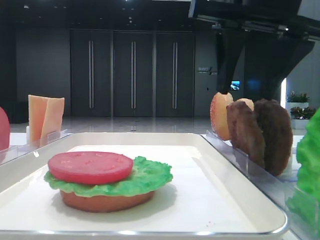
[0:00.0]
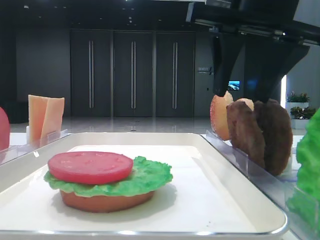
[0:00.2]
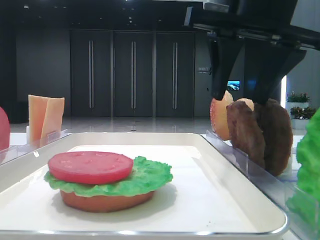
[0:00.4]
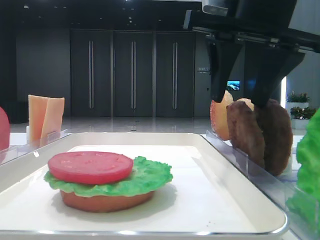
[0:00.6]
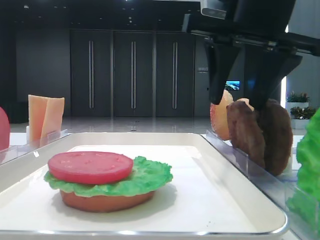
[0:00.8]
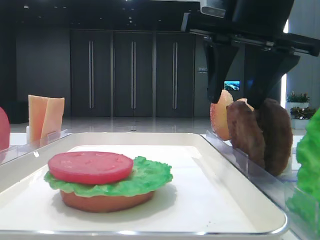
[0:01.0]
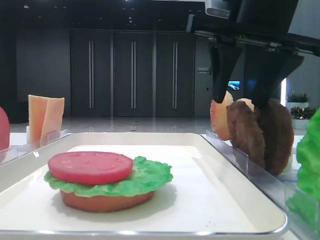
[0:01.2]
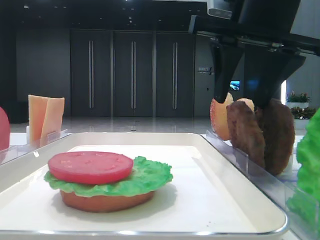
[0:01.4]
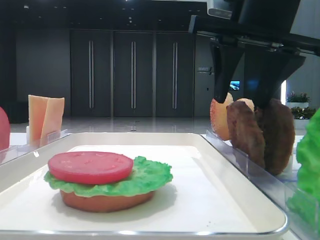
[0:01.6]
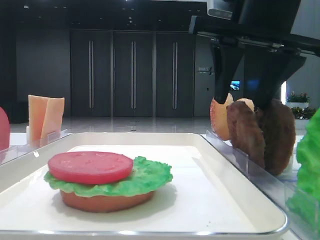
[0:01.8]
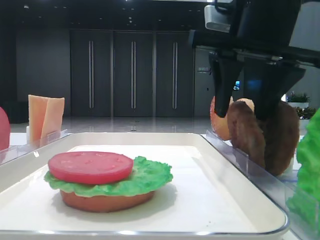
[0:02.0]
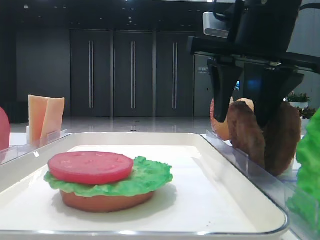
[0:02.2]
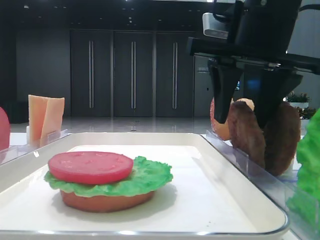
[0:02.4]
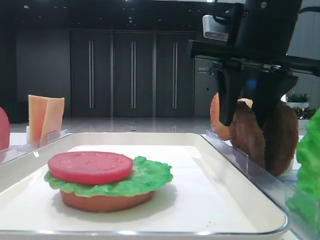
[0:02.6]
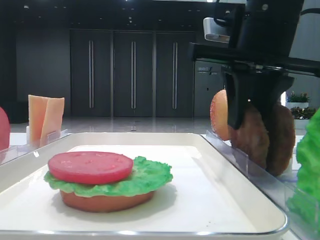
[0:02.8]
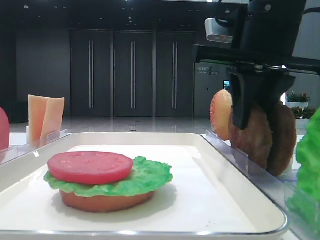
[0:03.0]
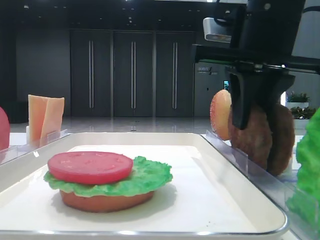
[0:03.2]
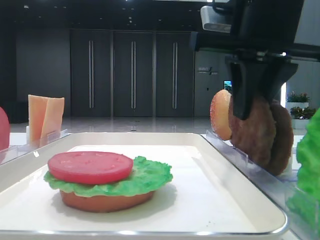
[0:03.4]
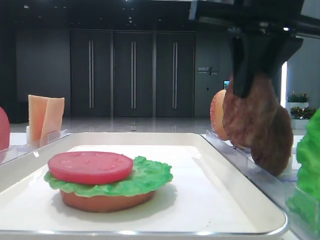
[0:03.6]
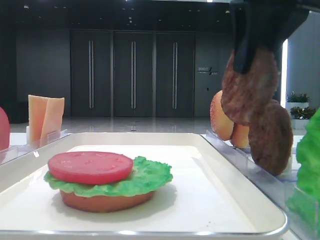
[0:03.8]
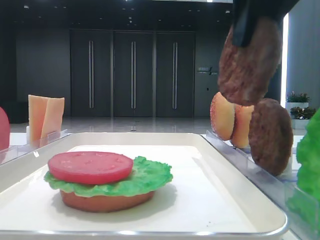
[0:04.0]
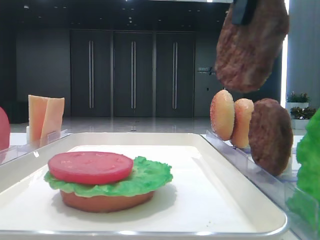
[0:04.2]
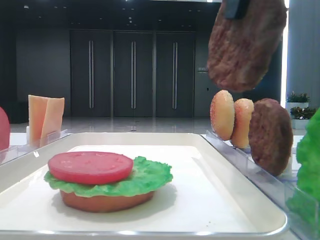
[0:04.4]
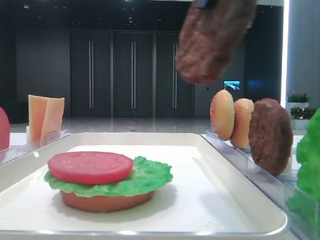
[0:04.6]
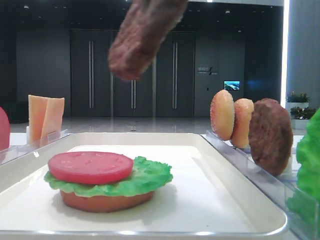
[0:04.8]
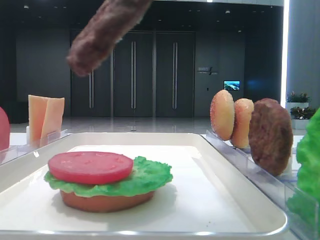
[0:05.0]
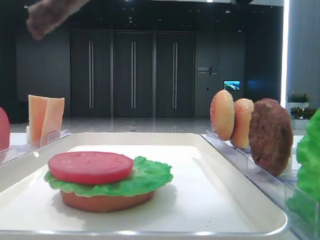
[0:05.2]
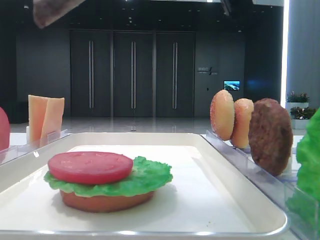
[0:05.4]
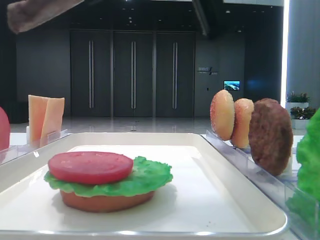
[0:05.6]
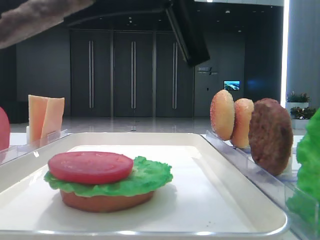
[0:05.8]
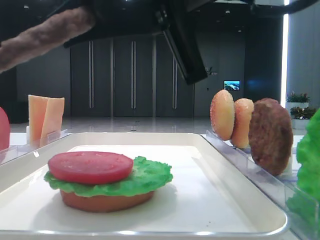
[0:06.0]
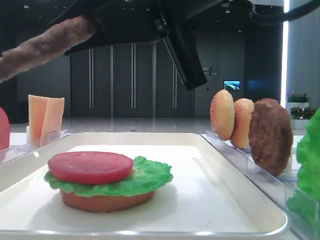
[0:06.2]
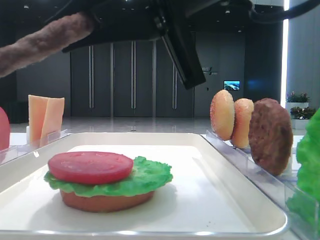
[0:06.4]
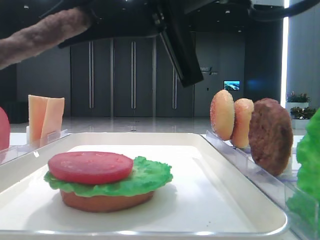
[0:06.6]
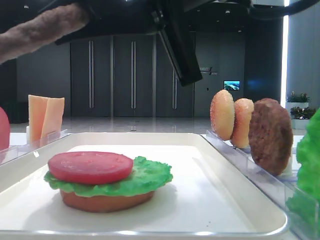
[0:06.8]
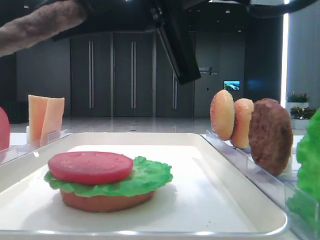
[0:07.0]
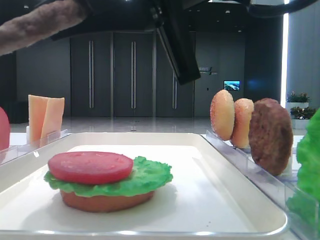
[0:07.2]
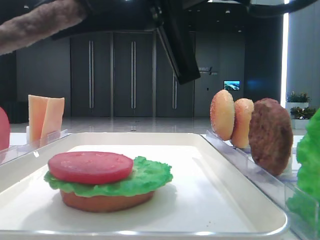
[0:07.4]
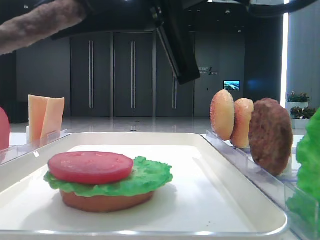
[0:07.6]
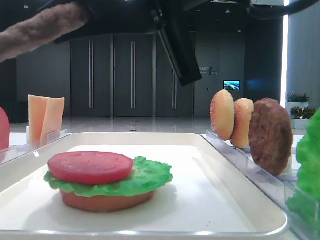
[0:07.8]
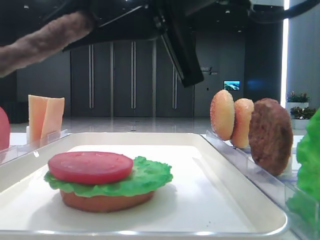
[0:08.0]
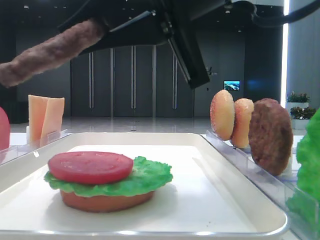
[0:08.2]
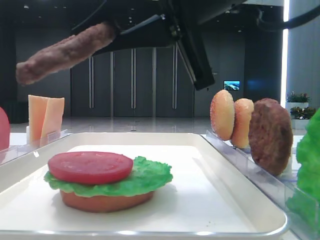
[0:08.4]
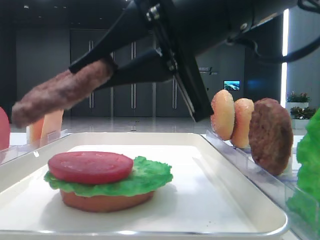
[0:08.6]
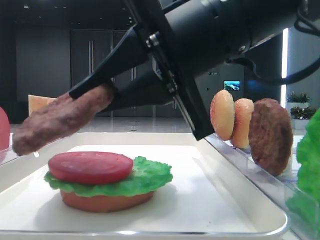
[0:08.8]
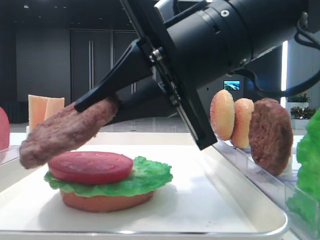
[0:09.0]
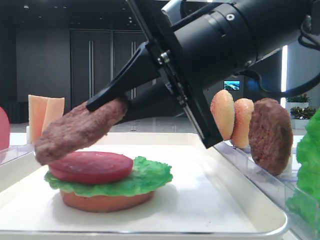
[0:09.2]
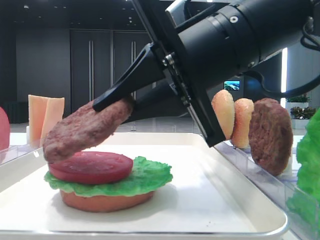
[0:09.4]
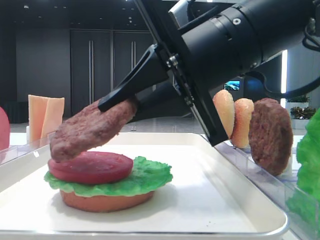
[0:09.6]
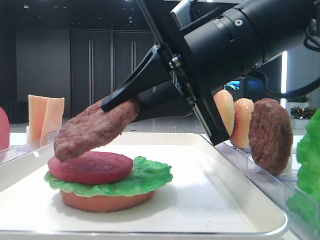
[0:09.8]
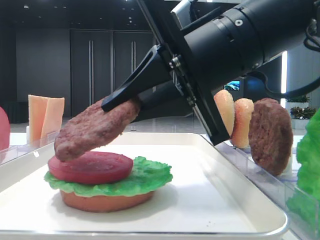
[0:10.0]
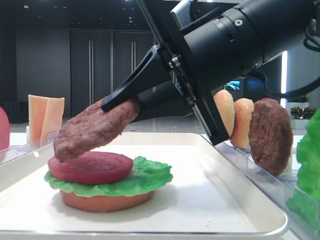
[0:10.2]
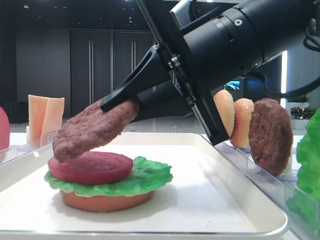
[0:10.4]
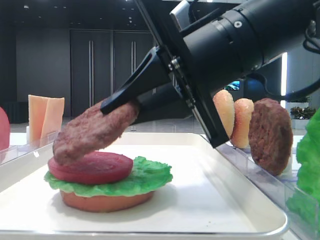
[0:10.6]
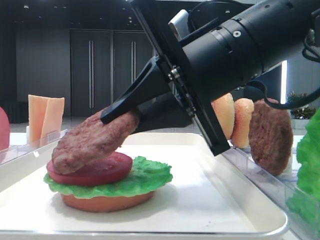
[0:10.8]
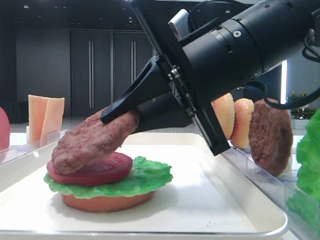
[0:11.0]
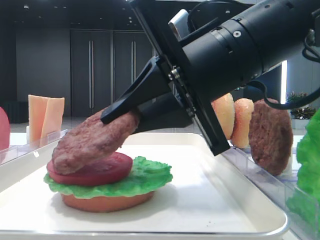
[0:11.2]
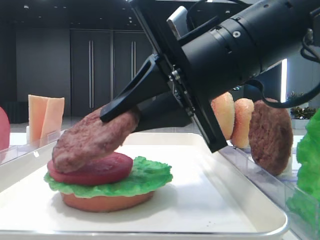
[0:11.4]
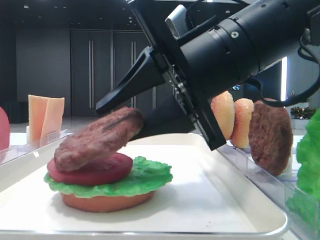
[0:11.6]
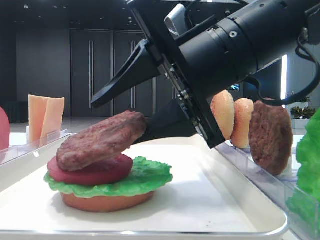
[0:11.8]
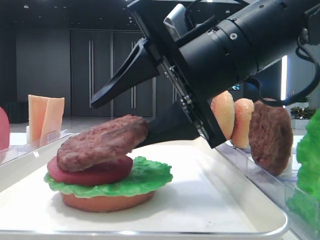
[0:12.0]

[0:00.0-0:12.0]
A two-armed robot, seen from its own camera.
Step, 0:00.0 to 0:03.0: Grab the patty with the right hand.
0:00.0 to 0:01.6: There are only small adjustments of the grippers.
0:01.6 to 0:03.0: The right gripper closes its fingers.
0:03.0 to 0:04.4: The right gripper shifts approximately 15 cm backward and upward.
0:04.4 to 0:06.0: The right gripper moves downward, some 10 cm.
0:06.0 to 0:07.6: The two grippers keep their place.
0:07.6 to 0:09.0: The right gripper is displaced downward by some 5 cm.
0:10.4 to 0:12.0: The right gripper opens.

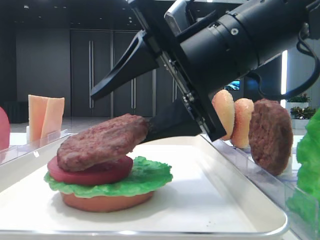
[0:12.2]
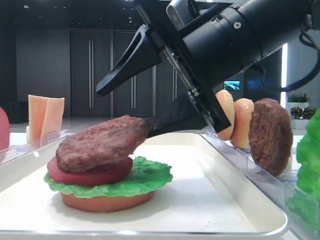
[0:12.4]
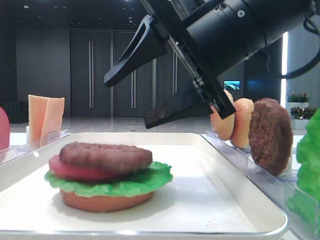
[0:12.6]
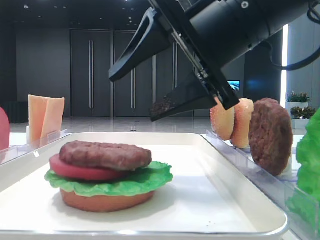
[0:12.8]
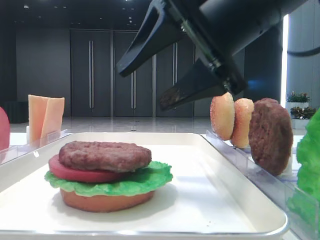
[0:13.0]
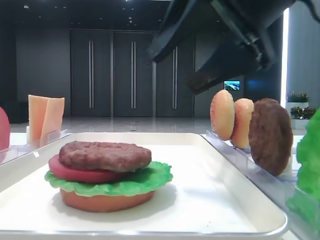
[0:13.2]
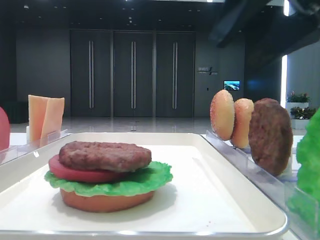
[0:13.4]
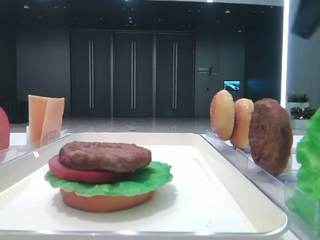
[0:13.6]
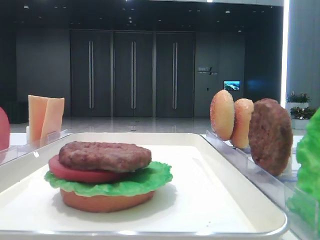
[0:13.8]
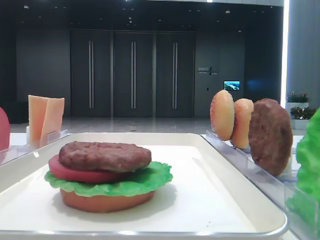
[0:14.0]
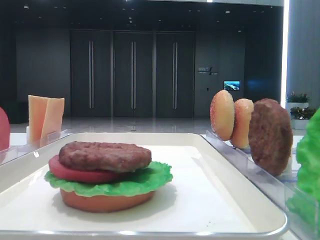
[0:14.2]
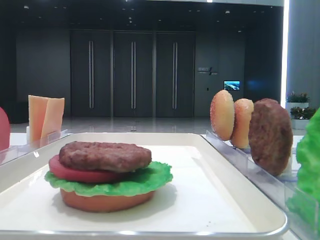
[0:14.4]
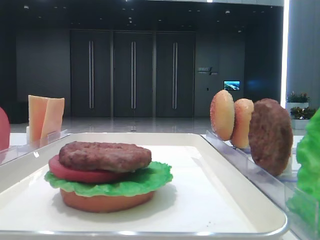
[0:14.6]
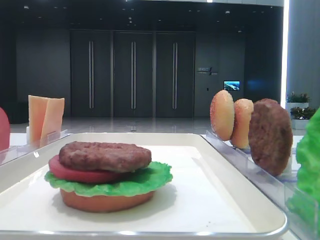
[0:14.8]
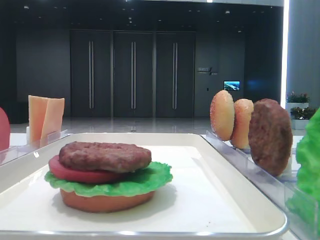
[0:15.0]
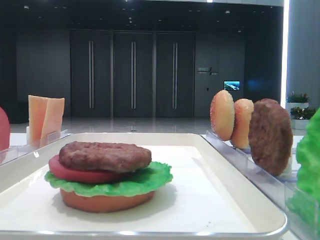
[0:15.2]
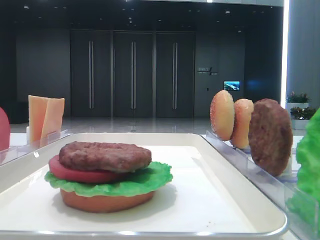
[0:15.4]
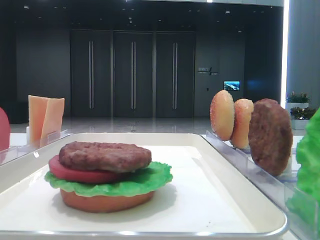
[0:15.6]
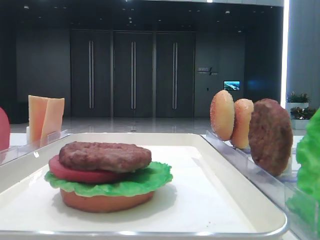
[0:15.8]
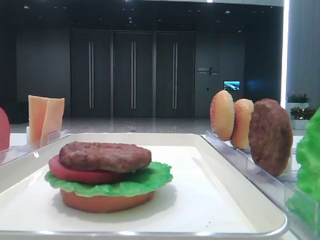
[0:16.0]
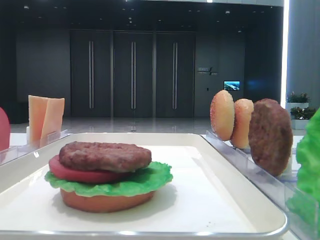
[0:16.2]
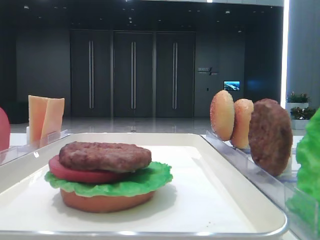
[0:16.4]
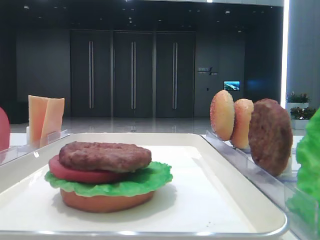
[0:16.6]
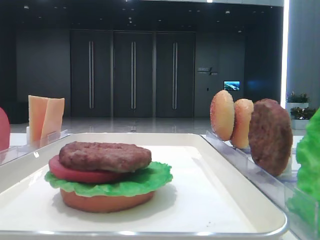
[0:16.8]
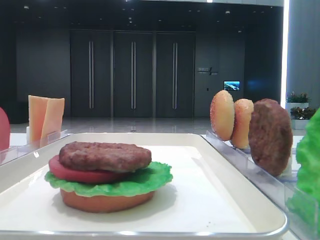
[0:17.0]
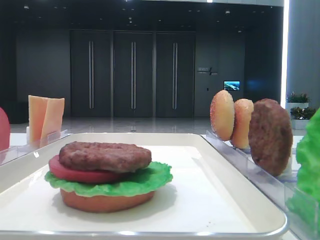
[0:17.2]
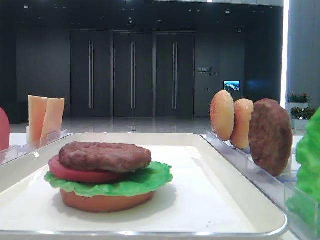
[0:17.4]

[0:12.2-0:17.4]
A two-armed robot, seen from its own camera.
0:12.2 to 0:14.0: The right gripper moves to the right, upward and backward, some 30 cm.

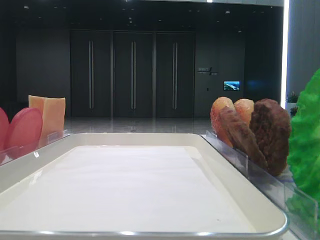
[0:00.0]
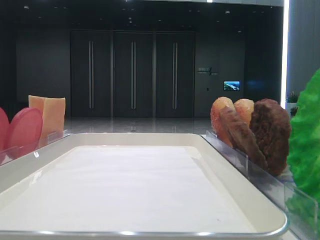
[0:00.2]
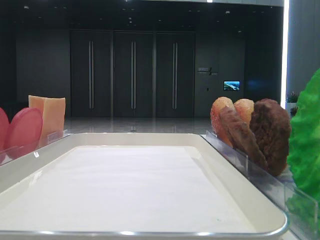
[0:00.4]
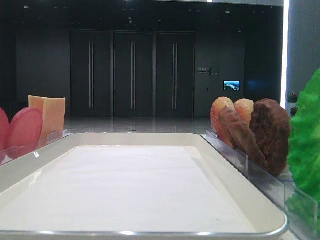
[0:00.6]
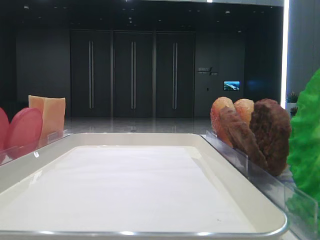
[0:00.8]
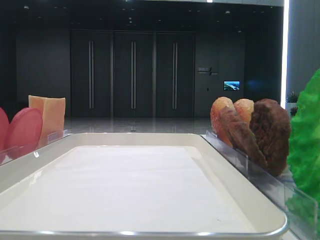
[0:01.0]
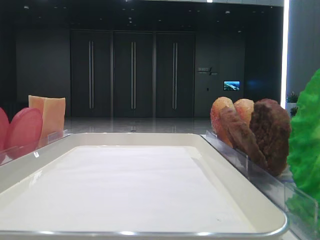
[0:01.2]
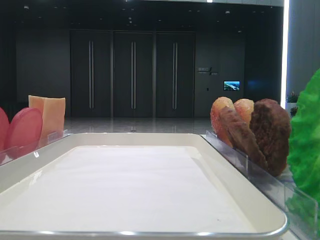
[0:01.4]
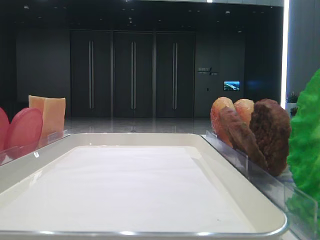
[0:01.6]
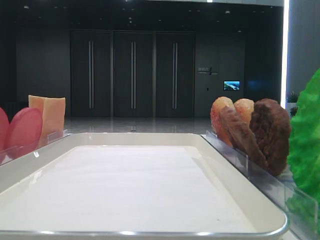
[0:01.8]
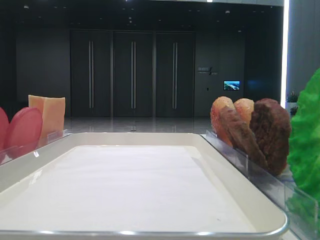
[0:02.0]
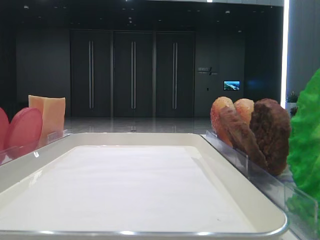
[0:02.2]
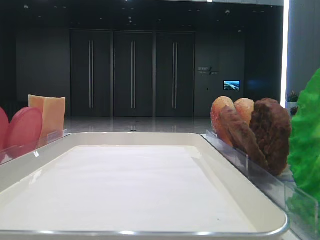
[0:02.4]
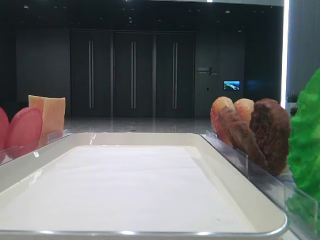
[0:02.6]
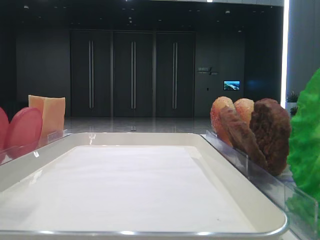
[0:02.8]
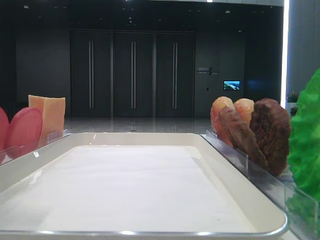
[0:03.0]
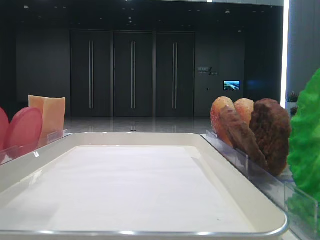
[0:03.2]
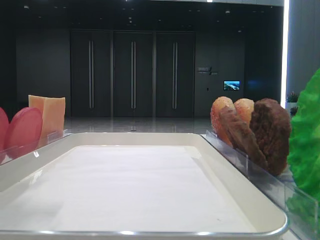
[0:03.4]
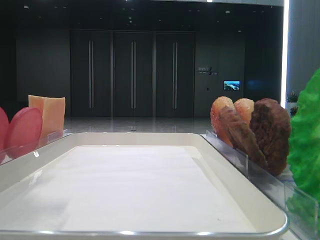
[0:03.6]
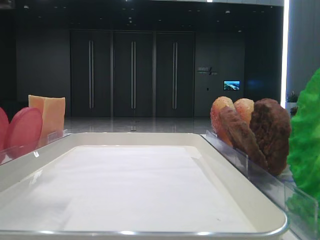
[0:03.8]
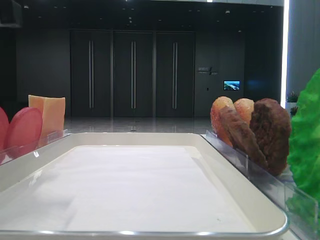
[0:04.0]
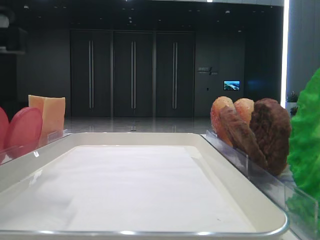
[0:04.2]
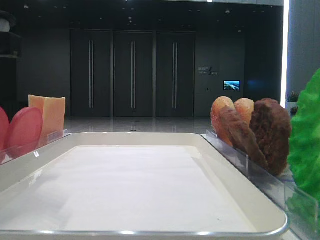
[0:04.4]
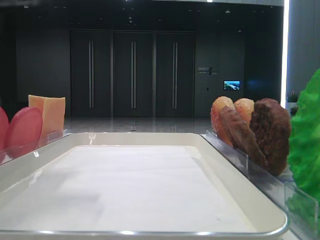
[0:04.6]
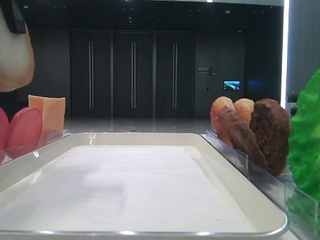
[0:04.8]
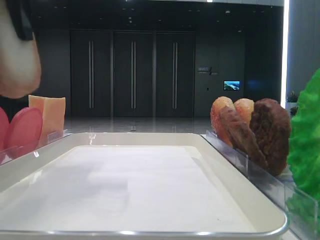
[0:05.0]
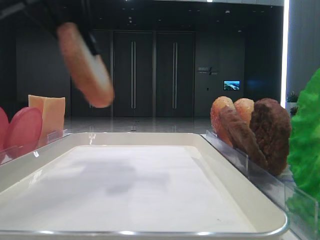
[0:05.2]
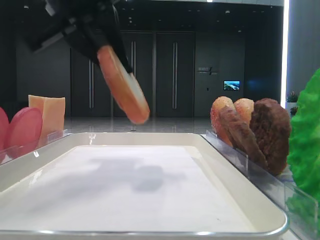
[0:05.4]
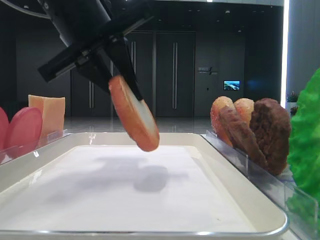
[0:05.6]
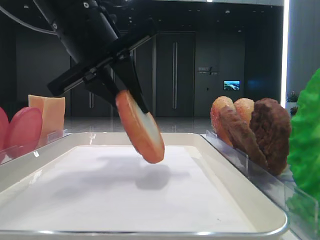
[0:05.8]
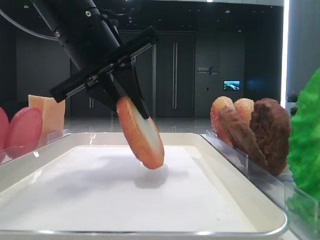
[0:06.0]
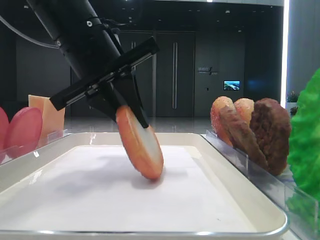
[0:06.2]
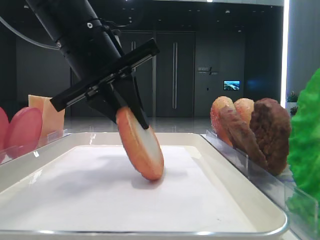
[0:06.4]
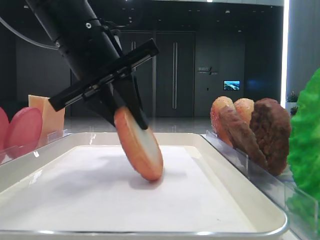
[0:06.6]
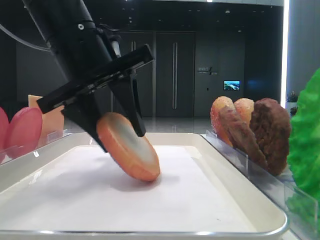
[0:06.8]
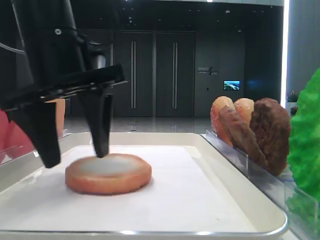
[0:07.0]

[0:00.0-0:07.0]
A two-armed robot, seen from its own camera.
Step, 0:04.4 to 0:06.8: Place the bread on the tray with the left hand.
0:02.8 to 0:04.2: The left gripper travels downward and to the right by about 10 cm.
0:04.2 to 0:05.6: The left gripper shifts some 10 cm to the right and forward, travels upward and back again, approximately 10 cm each way, and closes up.
0:05.6 to 0:07.0: The left gripper opens.
